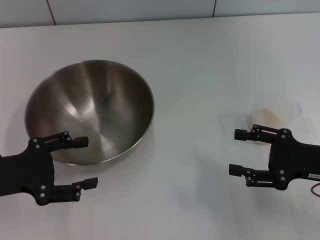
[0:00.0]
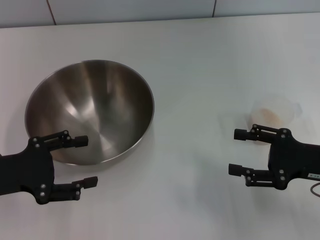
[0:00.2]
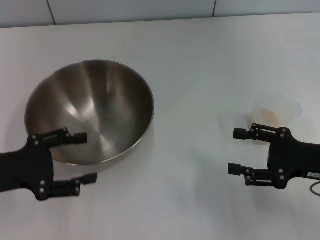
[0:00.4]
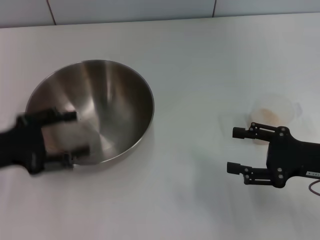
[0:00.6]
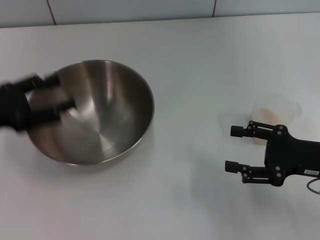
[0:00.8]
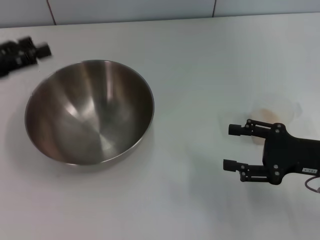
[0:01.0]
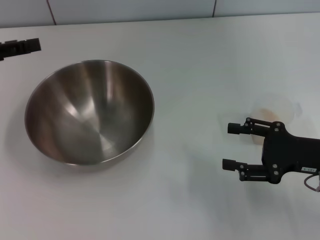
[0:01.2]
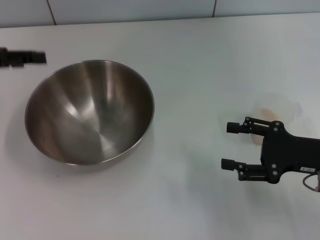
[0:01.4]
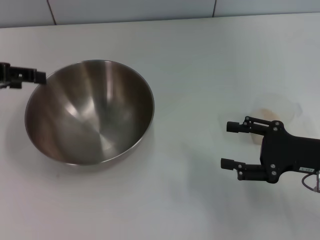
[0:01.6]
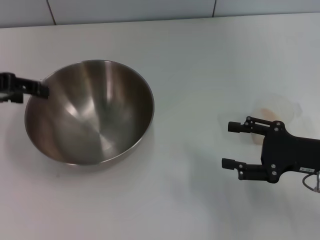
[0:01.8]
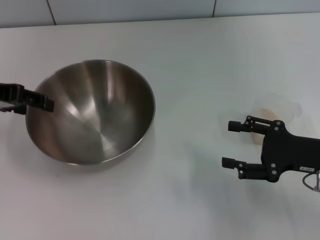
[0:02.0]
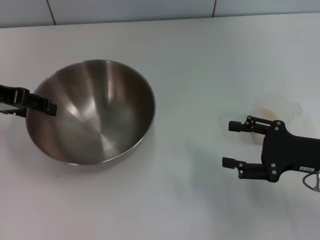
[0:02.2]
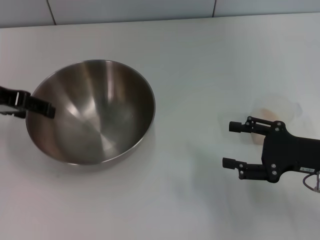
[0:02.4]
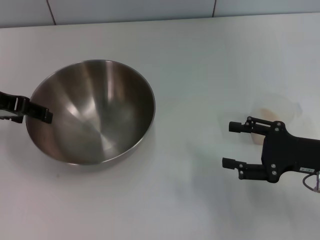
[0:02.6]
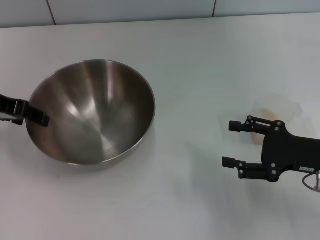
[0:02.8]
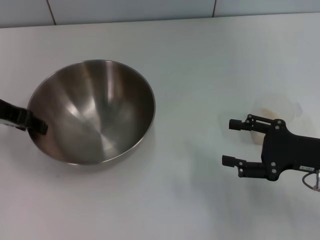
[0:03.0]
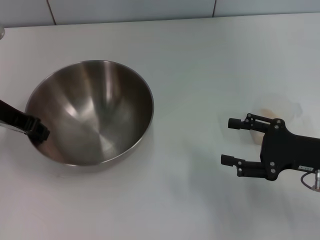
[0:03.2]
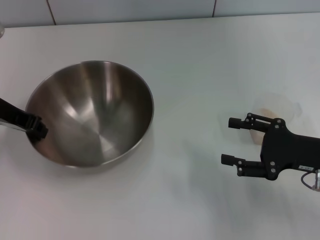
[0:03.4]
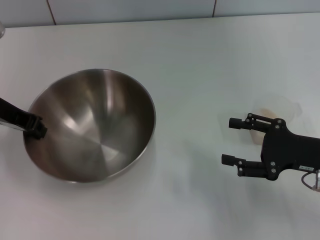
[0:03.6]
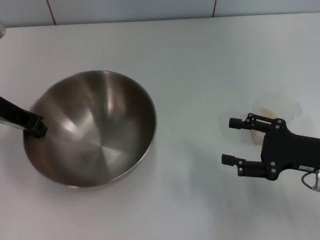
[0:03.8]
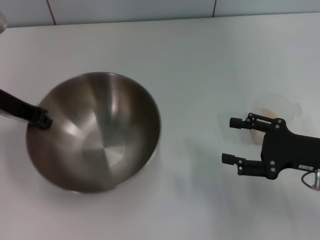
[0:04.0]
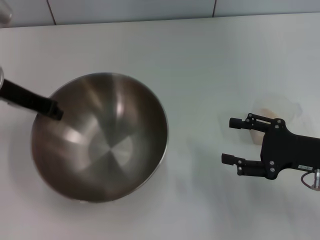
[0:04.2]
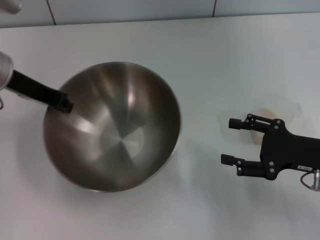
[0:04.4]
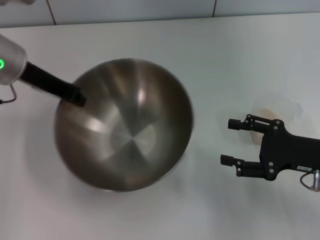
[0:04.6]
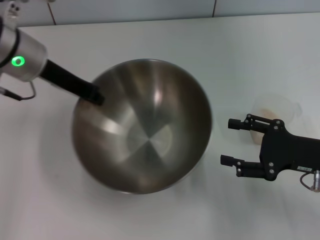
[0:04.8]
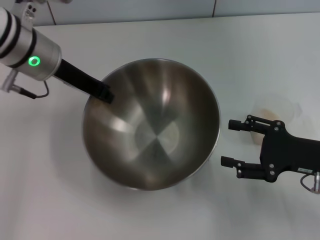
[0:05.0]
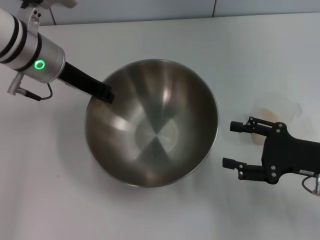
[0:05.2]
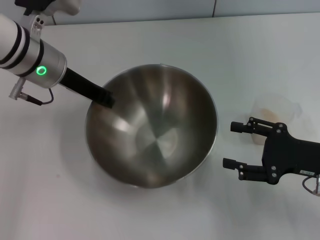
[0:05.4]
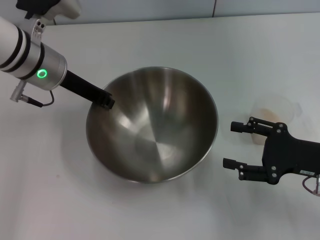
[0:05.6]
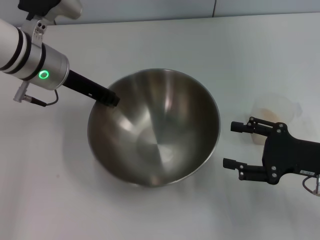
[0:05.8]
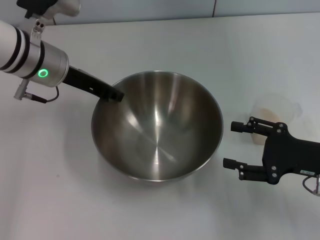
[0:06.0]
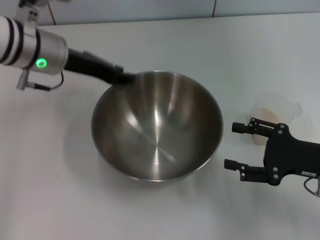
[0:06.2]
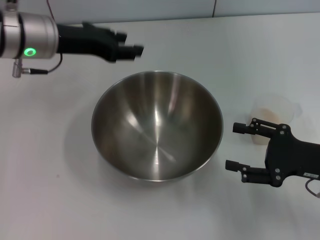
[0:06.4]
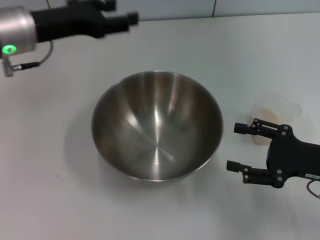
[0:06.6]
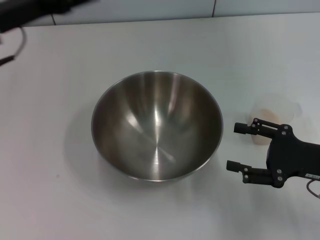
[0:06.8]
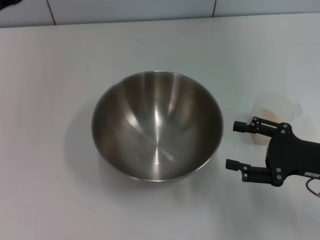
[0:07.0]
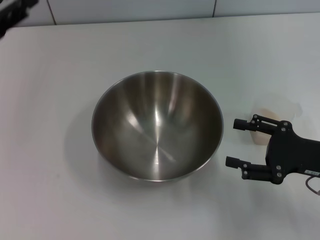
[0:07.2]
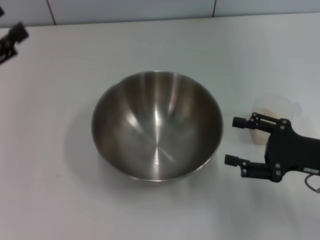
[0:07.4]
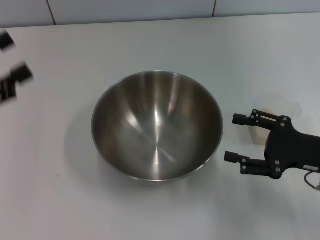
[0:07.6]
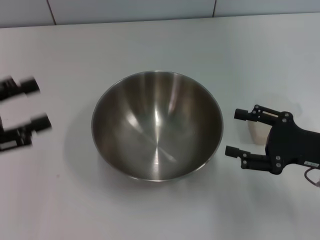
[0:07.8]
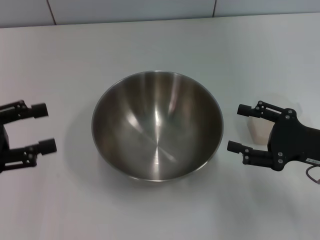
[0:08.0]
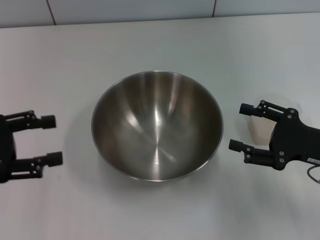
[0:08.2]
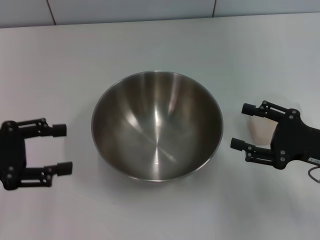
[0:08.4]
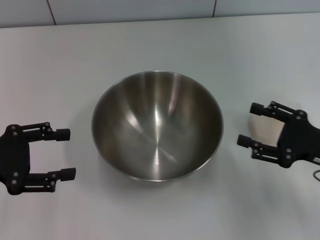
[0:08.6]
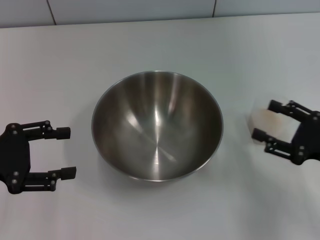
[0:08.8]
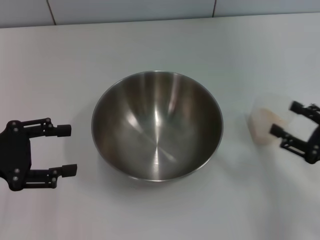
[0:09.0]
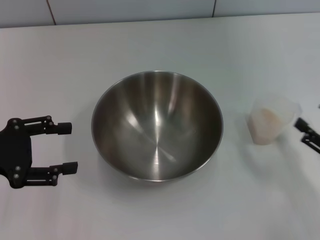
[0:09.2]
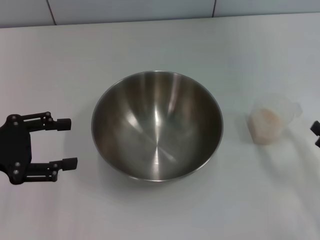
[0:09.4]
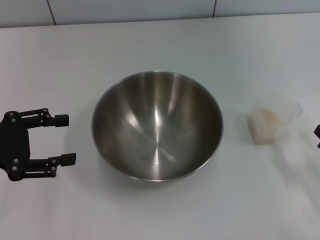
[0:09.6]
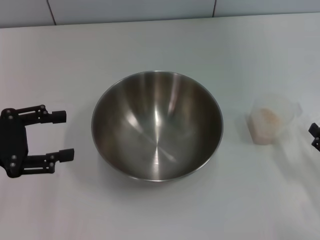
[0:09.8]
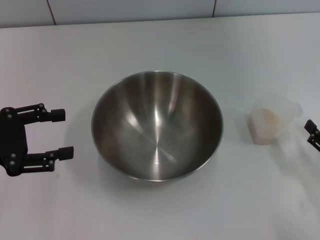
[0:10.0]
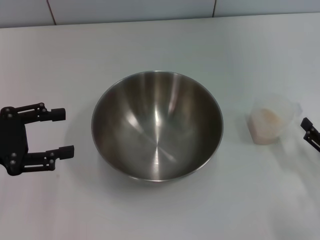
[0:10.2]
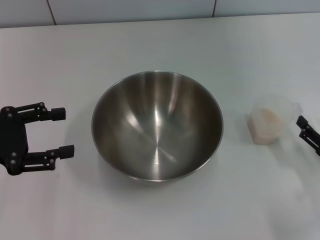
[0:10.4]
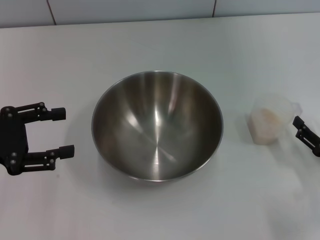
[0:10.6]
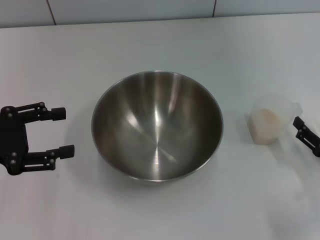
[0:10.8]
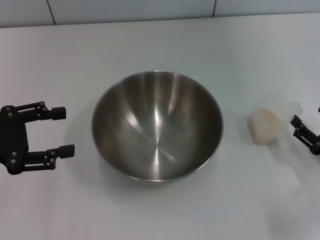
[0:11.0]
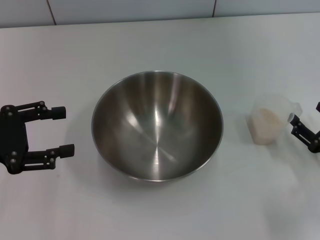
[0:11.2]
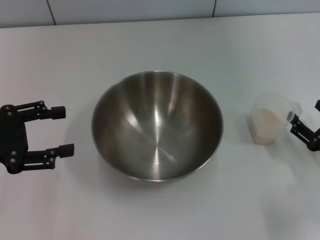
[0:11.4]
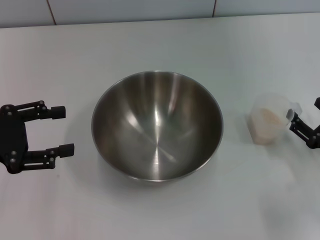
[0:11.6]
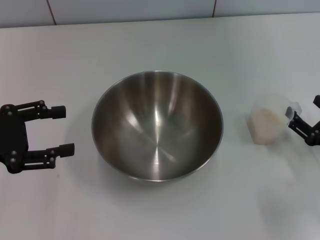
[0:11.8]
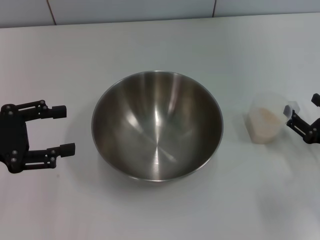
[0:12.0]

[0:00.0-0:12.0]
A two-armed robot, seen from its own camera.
Task of the whole recording: Place the bowl in the middle of the table with one hand and pour the rice from the grain cup into it with the other hand.
Step, 0:00.0 to 0:04.0: Pick up the bowl with the left gripper.
Step, 0:04.2 to 0:06.2: Place the bowl in the center of view with the left gripper.
0:00.0 to 0:01.6: The left gripper shifts approximately 15 cm upward and forward.
0:01.6 to 0:03.0: The left gripper shifts by some 5 cm.
0:03.0 to 0:04.4: The left gripper changes place by about 5 cm, and closes its fingers.
0:04.4 to 0:06.0: The left gripper moves to the right, approximately 5 cm.
0:06.0 to 0:07.6: The left gripper moves to the left and backward, some 20 cm, and opens up.
0:07.6 to 0:09.0: The right gripper moves about 5 cm.
0:10.4 to 0:12.0: There are only small adjustments of the grippers.

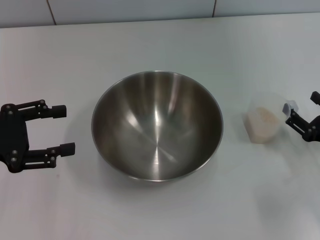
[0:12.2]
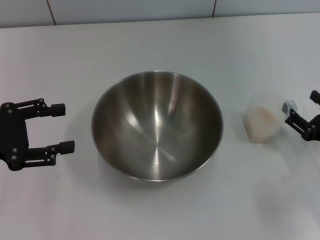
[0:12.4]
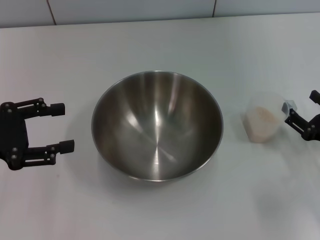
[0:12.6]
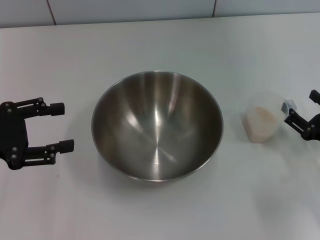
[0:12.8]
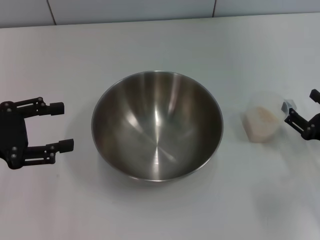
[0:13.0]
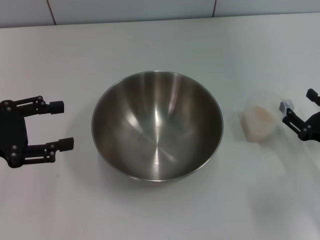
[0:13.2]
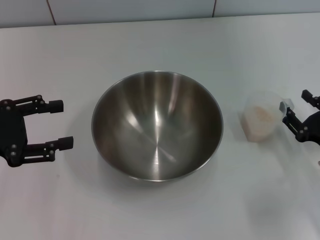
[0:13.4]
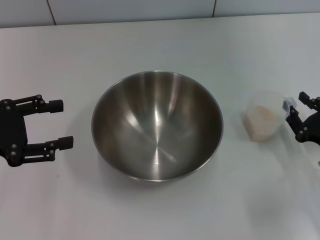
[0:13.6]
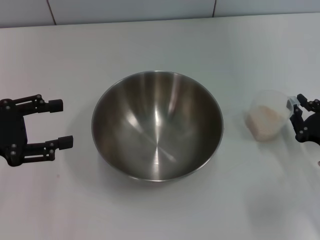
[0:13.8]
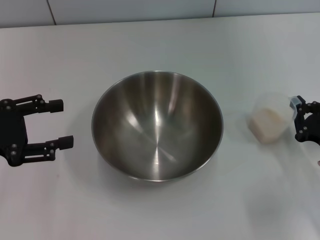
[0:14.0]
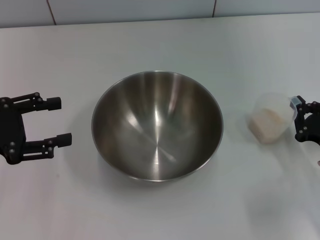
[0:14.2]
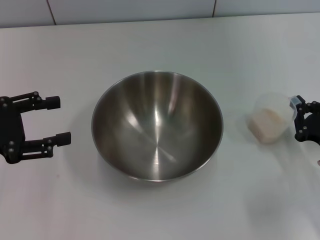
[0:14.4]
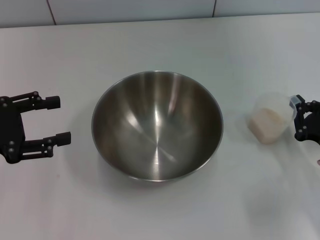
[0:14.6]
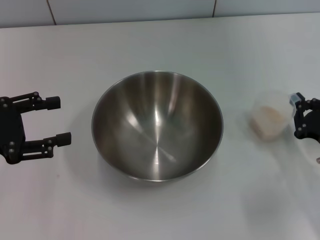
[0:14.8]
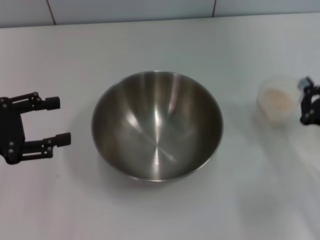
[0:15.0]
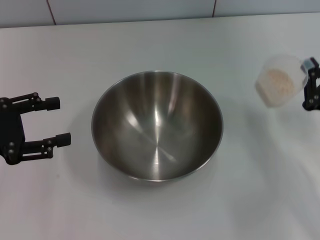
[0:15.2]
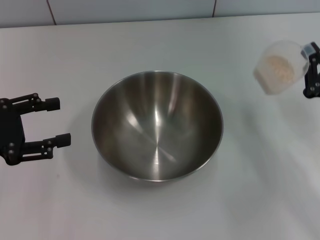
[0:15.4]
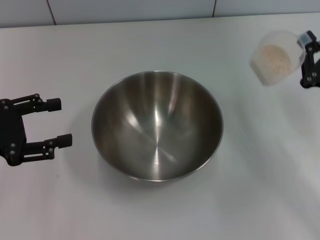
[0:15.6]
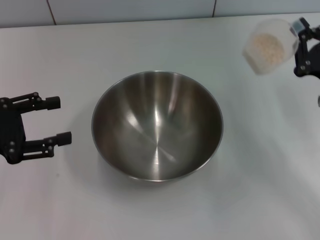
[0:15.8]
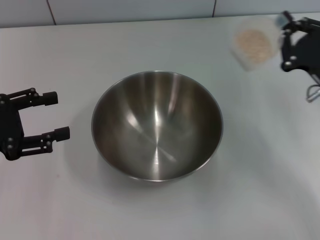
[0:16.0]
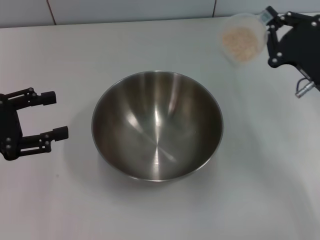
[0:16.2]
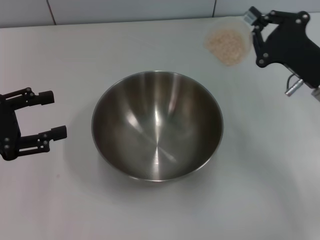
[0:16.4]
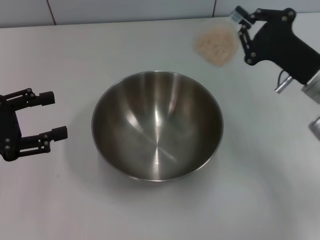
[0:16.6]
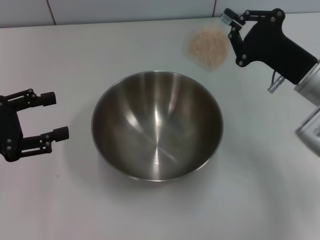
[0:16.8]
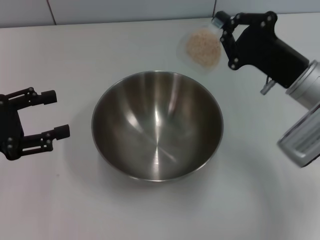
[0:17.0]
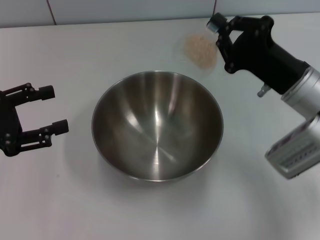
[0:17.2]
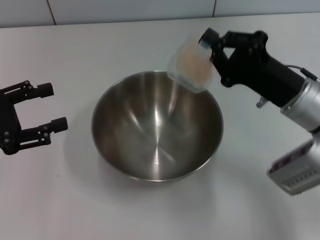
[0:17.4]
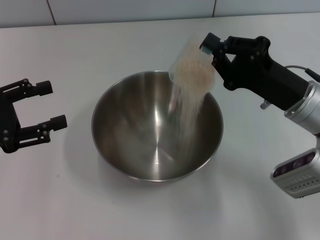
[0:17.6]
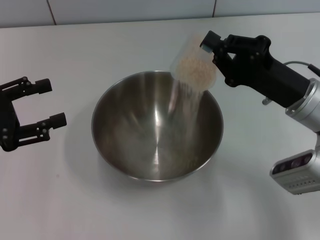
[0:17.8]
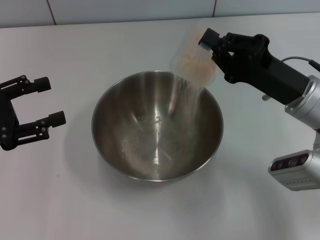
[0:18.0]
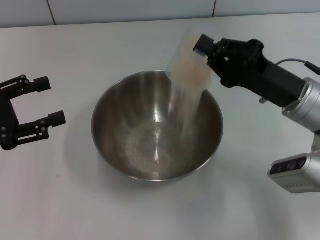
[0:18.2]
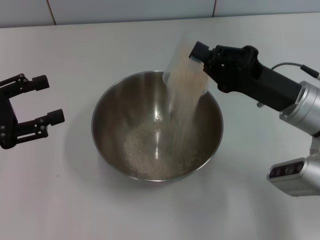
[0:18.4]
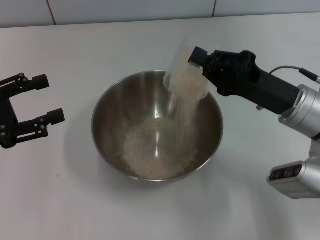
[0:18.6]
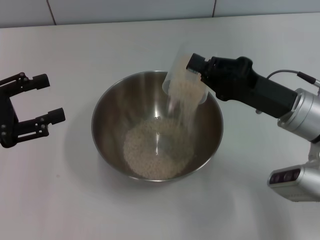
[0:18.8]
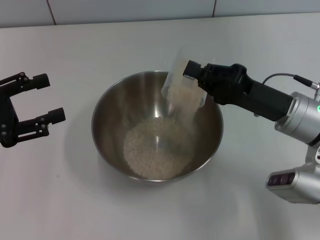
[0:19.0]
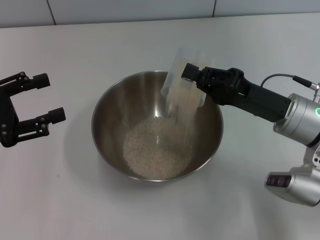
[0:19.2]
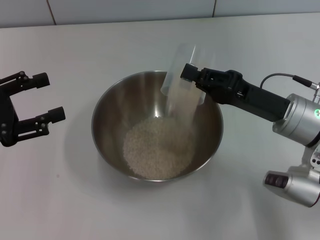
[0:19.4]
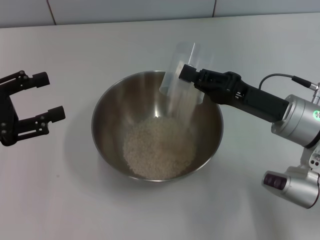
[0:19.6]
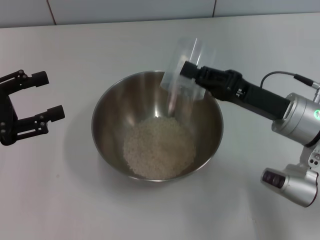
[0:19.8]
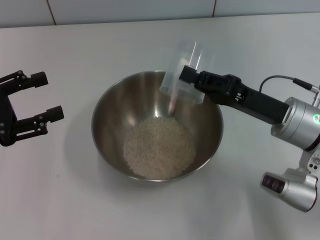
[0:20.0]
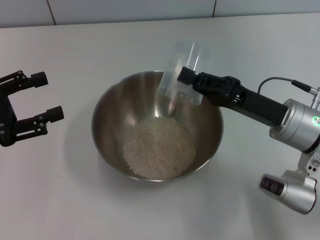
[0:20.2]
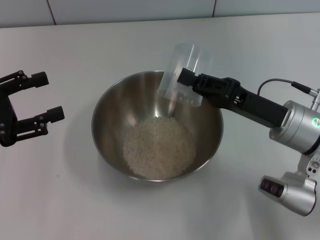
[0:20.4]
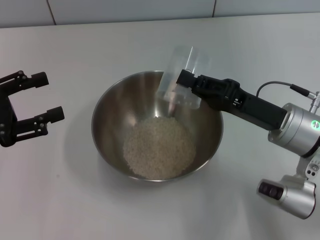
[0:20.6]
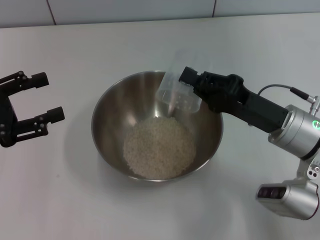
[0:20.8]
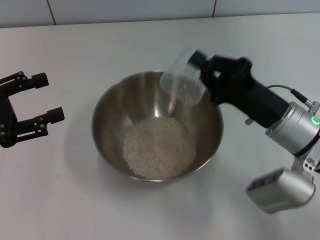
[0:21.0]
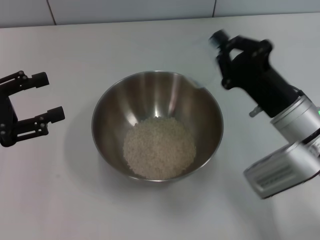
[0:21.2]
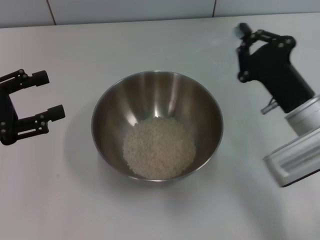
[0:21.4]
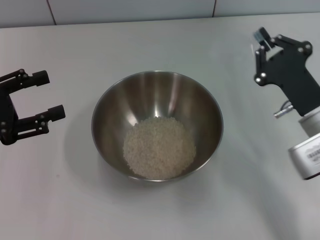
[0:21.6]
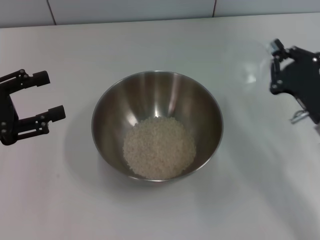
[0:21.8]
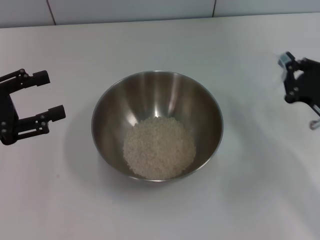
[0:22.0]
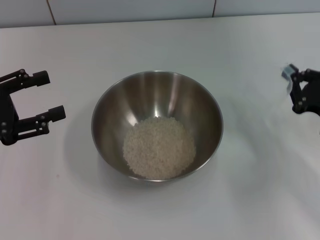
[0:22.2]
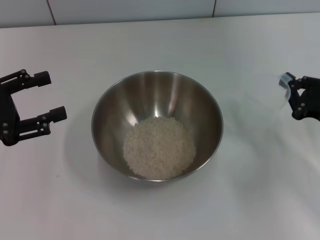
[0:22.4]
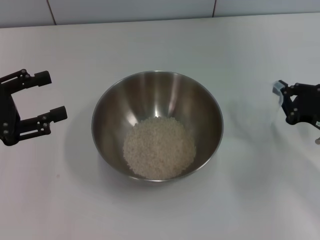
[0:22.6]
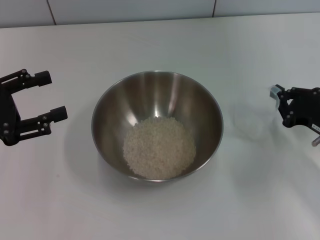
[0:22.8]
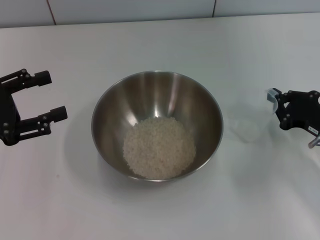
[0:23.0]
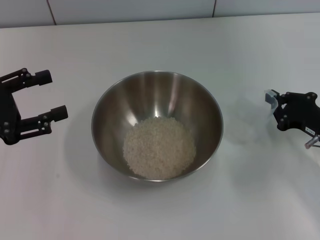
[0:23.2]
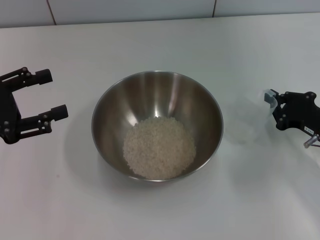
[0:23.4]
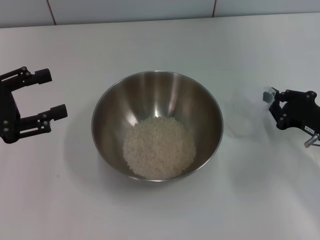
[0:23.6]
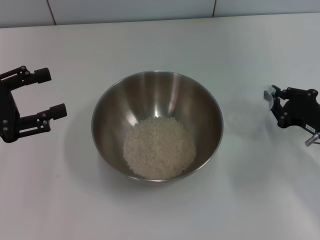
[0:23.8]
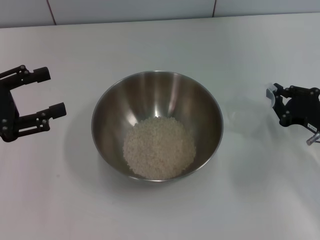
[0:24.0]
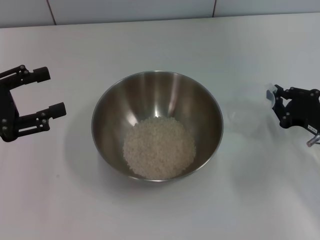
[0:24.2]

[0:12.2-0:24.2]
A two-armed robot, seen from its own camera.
Task of the whole recording: Place the bowl in the middle of the table with one hand and pour the rice from the grain cup into it with the other hand.
Step, 0:12.2 to 0:15.4: Pick up the cup with rice in it with the right gripper.
Step, 0:15.8 to 0:21.4: Pour the rice from the cup into the bowl with the right gripper.
0:12.2 to 0:13.8: The right gripper closes its fingers.
0:13.8 to 0:15.2: The right gripper closes its fingers.
0:15.2 to 0:16.6: The right gripper goes roughly 10 cm forward, to the left and upward.
0:18.2 to 0:19.8: The grippers stay close to where they were, moving slightly.
0:21.2 to 0:22.6: The right gripper is displaced to the right by about 10 cm.
0:22.6 to 0:24.2: There are only small adjustments of the grippers.
